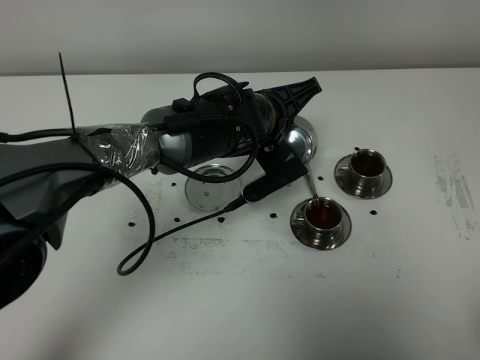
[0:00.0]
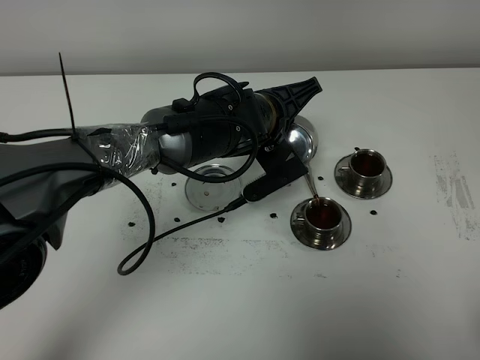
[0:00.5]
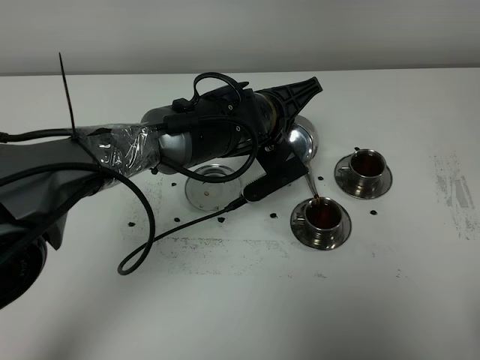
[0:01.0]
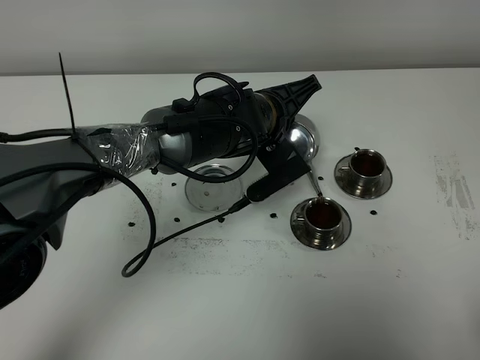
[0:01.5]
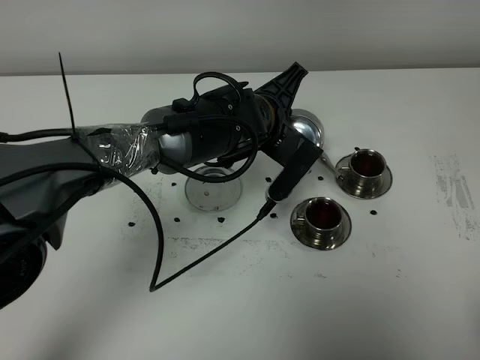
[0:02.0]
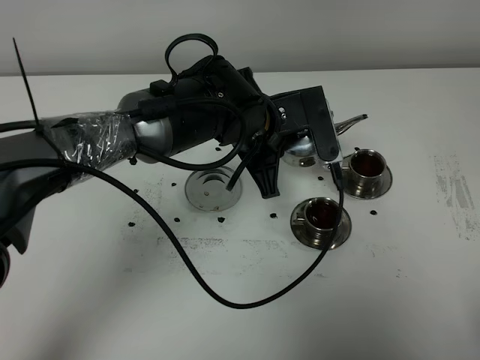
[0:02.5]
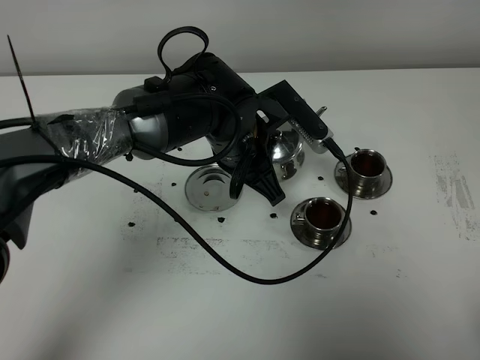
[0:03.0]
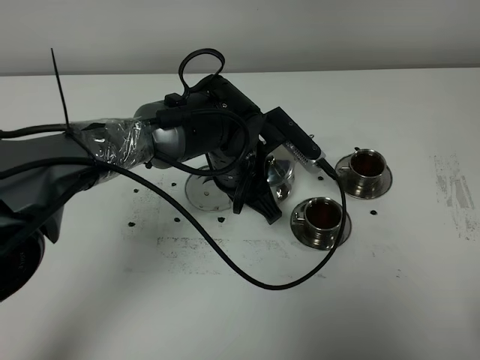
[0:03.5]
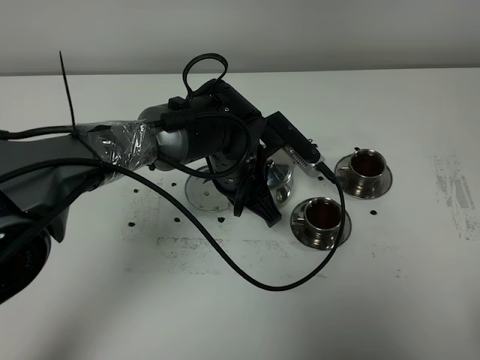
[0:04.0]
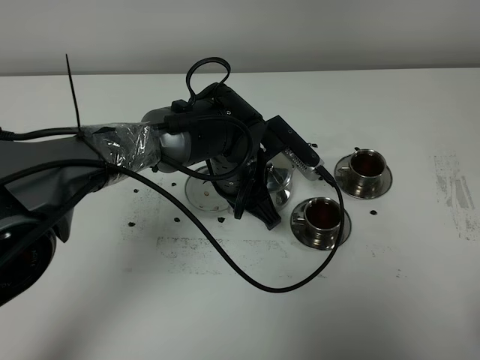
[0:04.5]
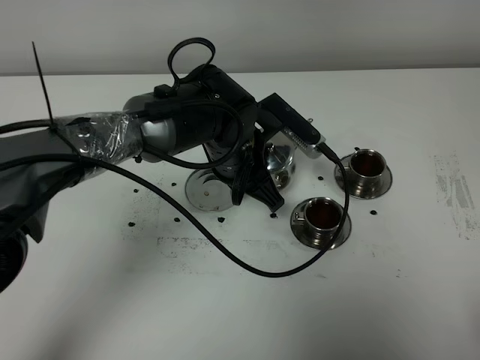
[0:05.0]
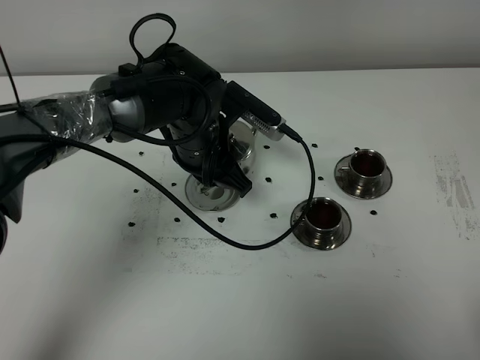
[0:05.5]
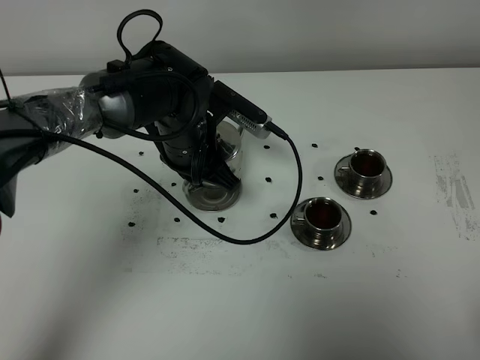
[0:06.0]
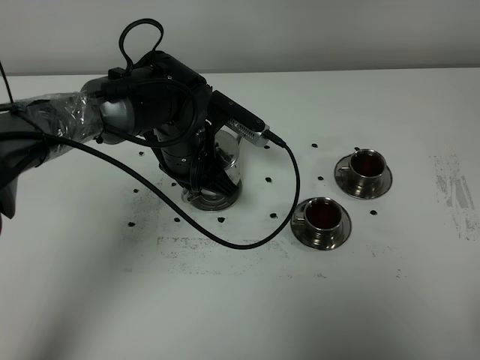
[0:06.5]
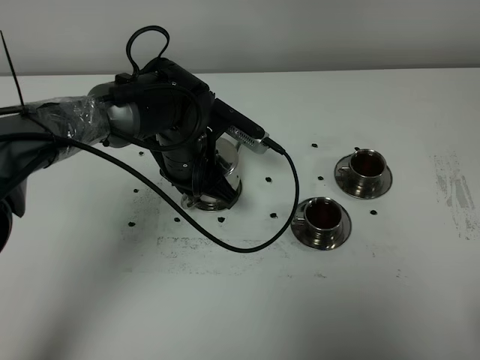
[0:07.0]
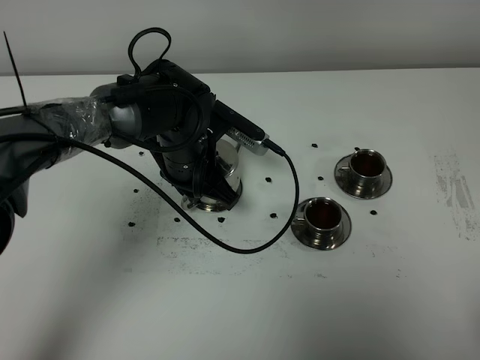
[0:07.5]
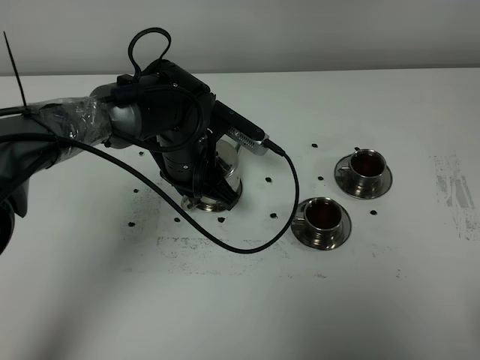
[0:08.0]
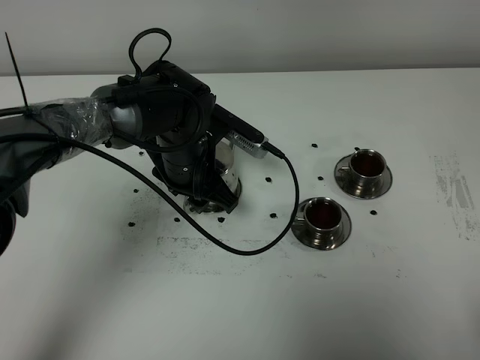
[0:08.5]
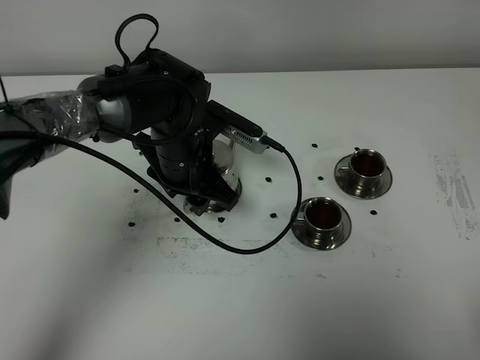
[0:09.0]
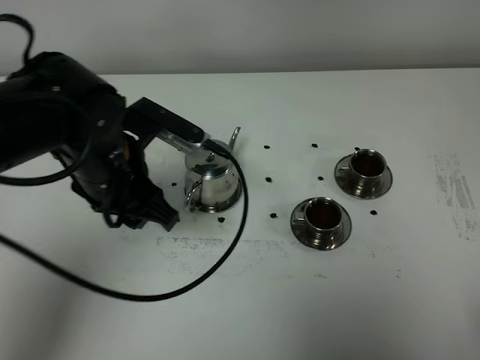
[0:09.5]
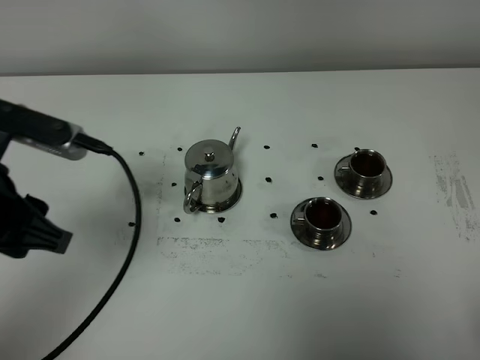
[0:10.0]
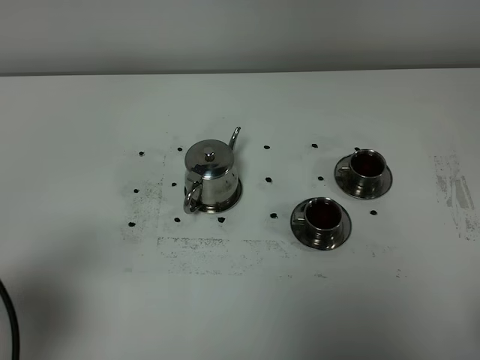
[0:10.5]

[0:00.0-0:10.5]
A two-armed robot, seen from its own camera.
Task of the whole recording: grasp the stainless steel teapot and pour the tea into the two stainless steel teacups one by one, put the stainless steel teapot back in its original place.
0:04.0 to 0:06.5: The left gripper moves to the left, about 5 cm.
0:06.5 to 0:08.5: The left gripper opens up.
0:08.5 to 0:10.5: The left gripper goes roughly 40 cm backward, to the left and upward.

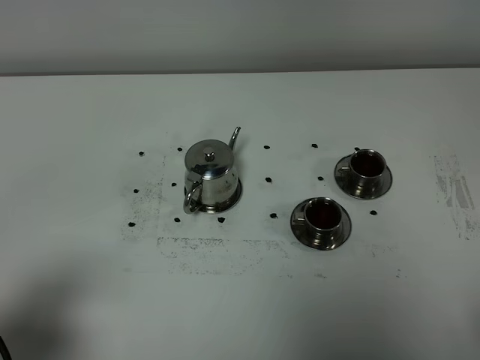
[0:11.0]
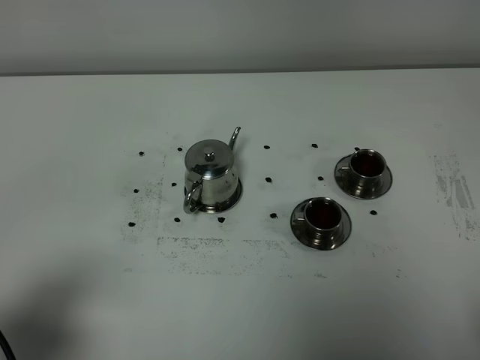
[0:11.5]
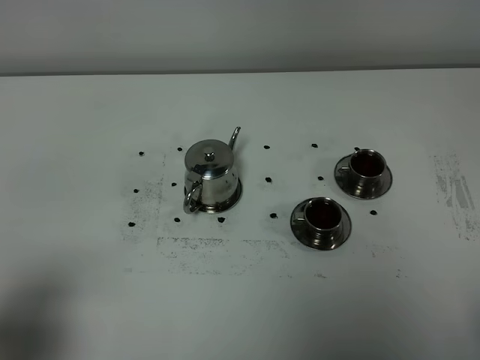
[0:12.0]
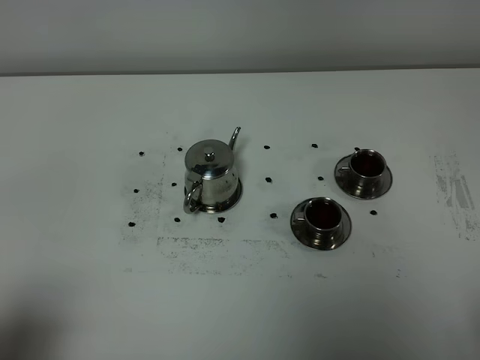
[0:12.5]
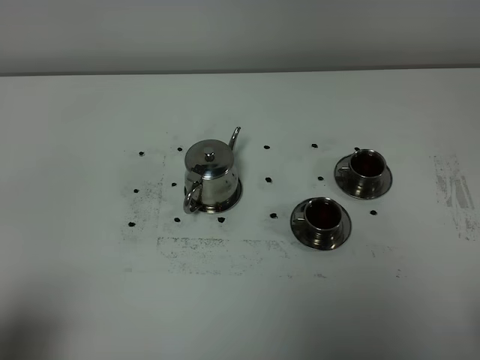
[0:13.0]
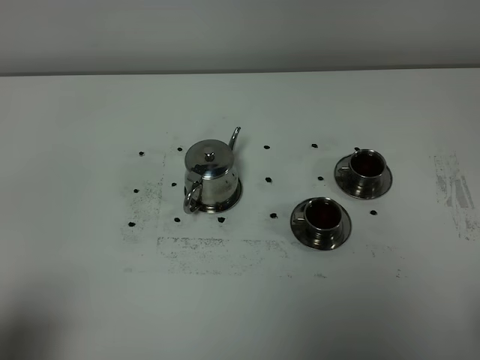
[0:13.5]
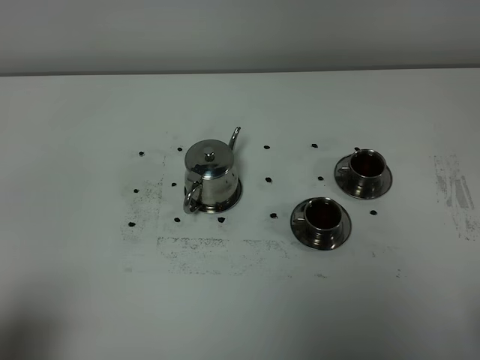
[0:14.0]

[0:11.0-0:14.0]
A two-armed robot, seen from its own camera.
Task of the whole recording: grasp the stainless steel teapot and pour the tea into the two stainless steel teacups one by one, put the stainless steel teapot back in its original place.
0:11.0 to 0:12.5: The left gripper heads backward, covering roughly 5 cm.
0:12.5 to 0:14.0: Both grippers stay put.
